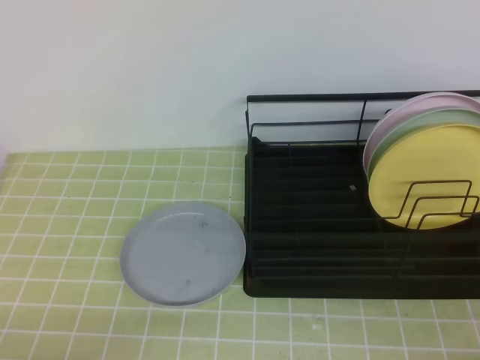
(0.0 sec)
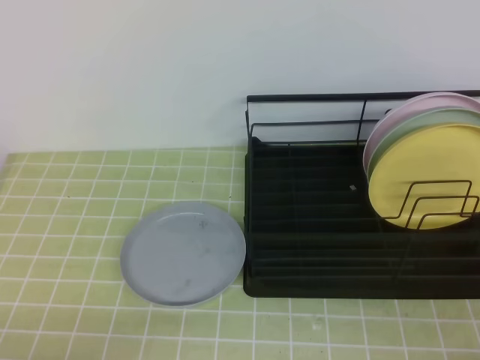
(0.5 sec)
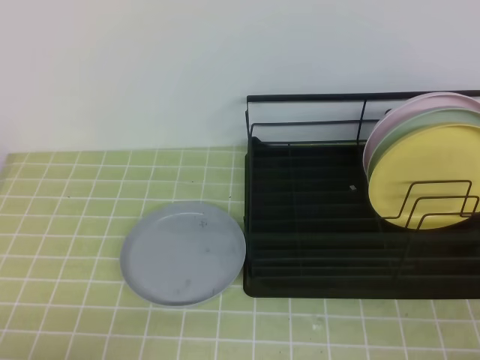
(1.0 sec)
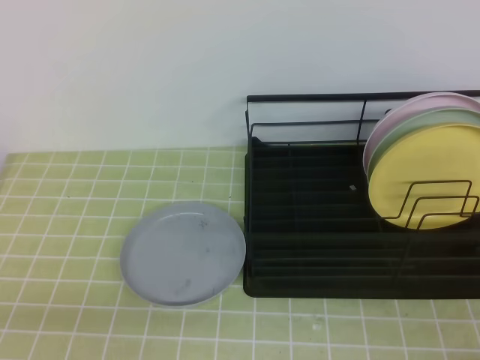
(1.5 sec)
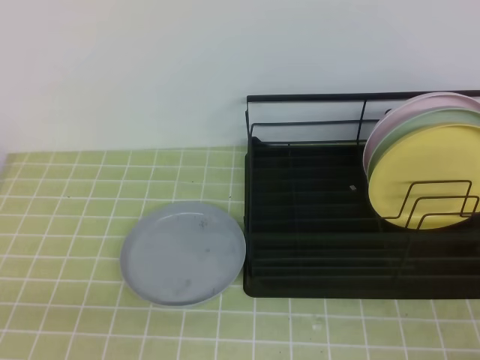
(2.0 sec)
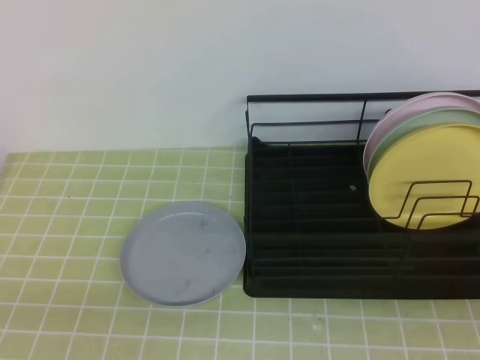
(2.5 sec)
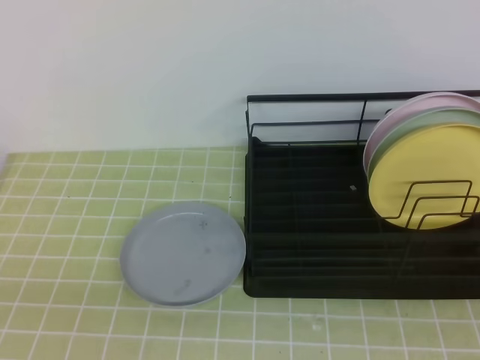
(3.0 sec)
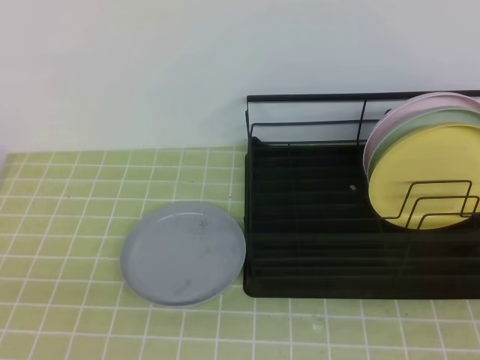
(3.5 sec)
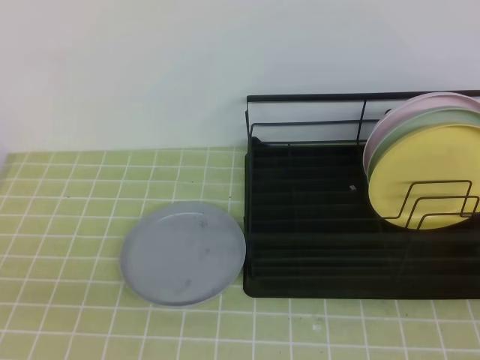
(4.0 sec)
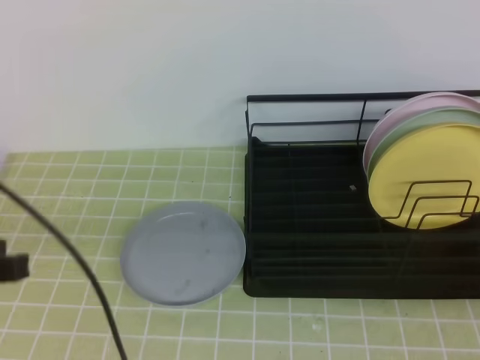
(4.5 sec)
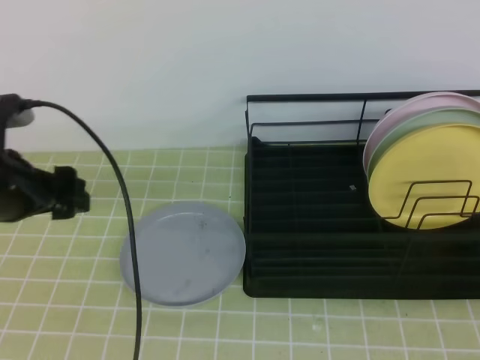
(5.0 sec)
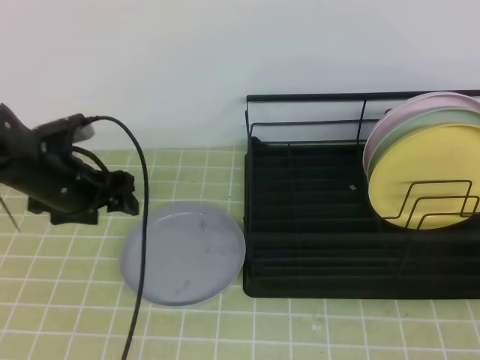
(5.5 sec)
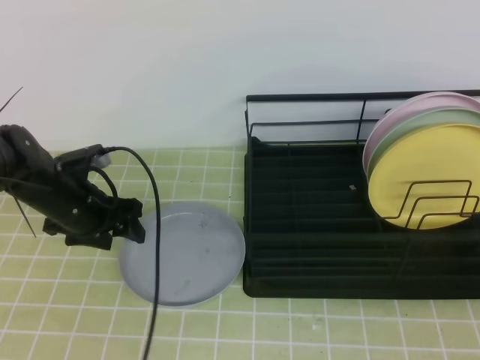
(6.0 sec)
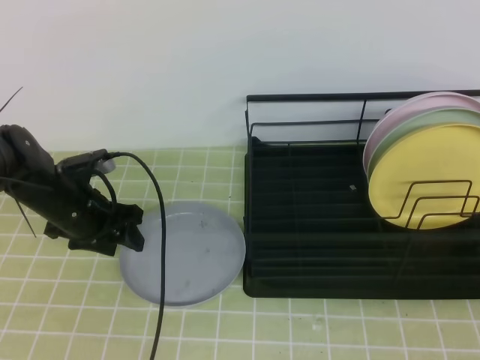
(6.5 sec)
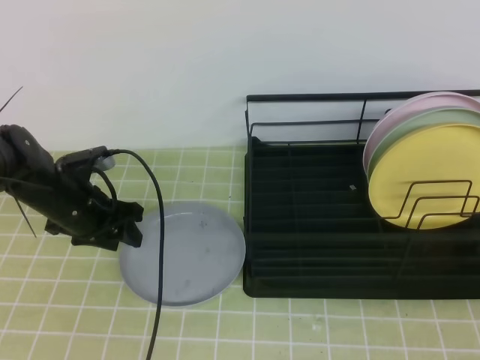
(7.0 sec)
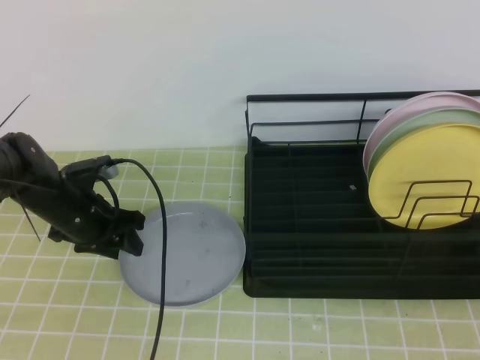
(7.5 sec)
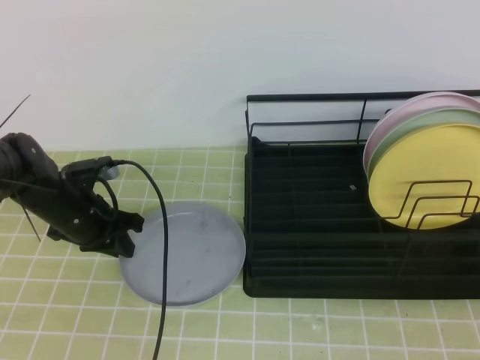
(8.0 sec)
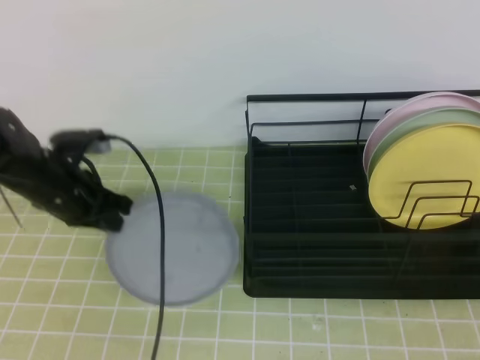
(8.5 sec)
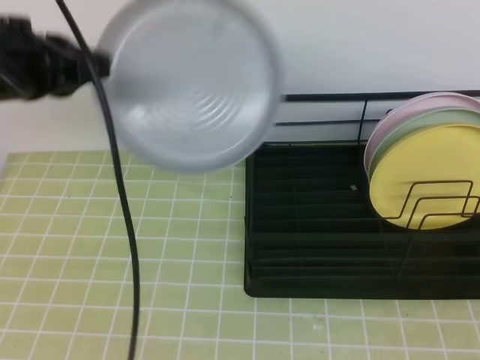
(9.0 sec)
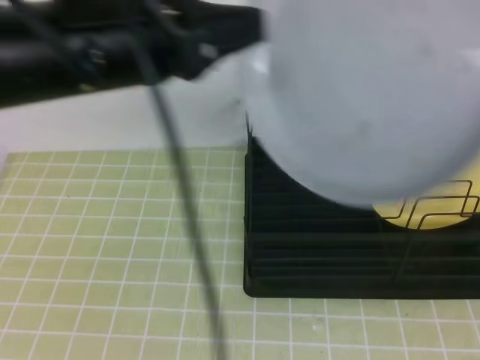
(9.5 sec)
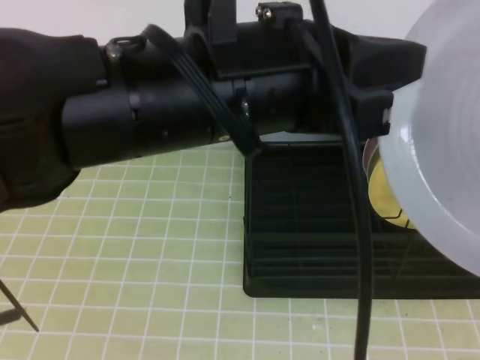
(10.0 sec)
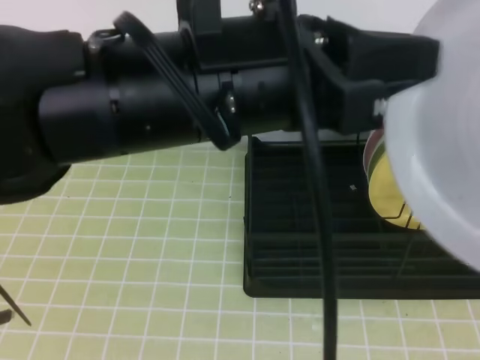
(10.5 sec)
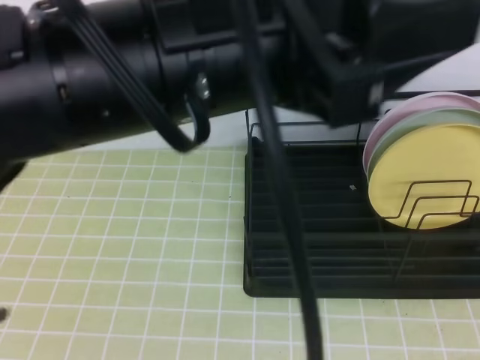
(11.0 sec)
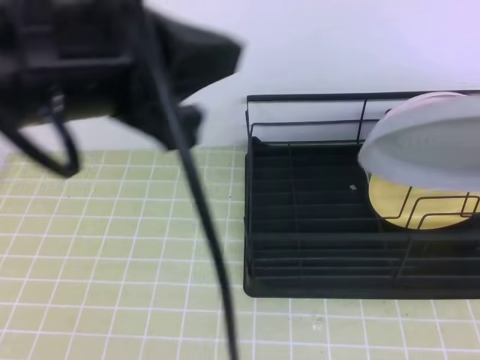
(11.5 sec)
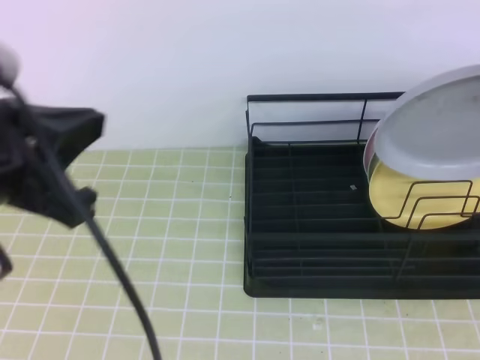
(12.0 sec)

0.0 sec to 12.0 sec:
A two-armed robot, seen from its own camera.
Step, 0.0 sec to 6.5 sec: Left grab the gray plate.
Step, 9.0 sec to 11.0 sec: Right place it at the front of the shelf.
4.0 sec to 6.0 sec: The left gripper is displaced forward by approximately 35 cm, and opens its fingers.
6.0 sec to 8.0 sec: The left gripper closes.
8.0 sec to 10.0 sec: The right gripper heads upward, covering approximately 10 cm, and opens its fingers; the left gripper heads upward, backward and to the right, covering approximately 40 cm.
10.0 sec to 12.0 sec: The right gripper is displaced forward by about 25 cm, and closes its fingers, while the left gripper heads to the left, covering about 15 cm, and opens, then closes once more.

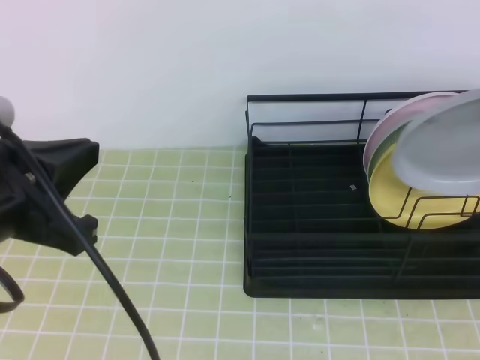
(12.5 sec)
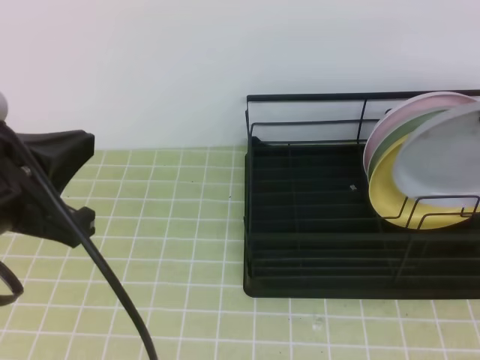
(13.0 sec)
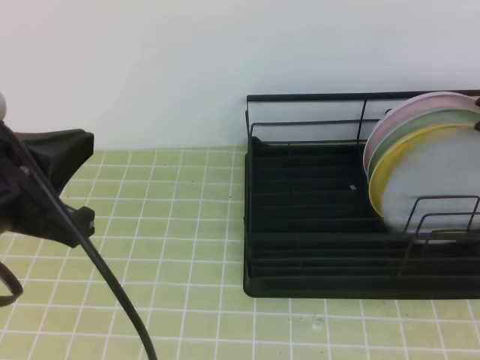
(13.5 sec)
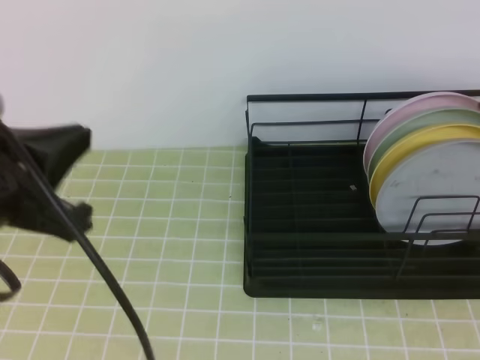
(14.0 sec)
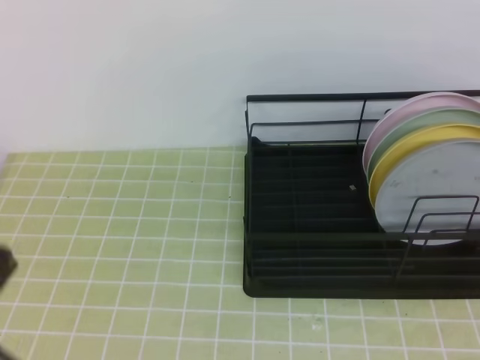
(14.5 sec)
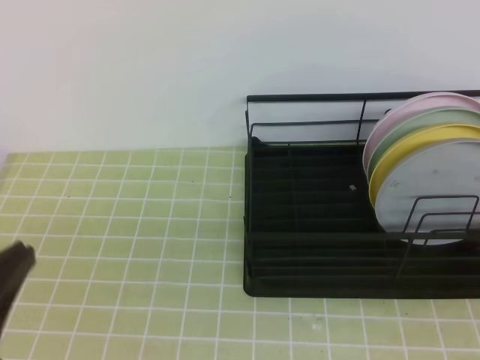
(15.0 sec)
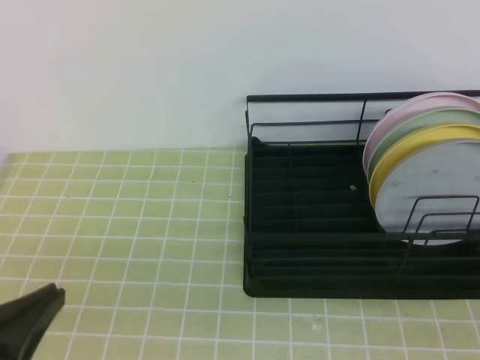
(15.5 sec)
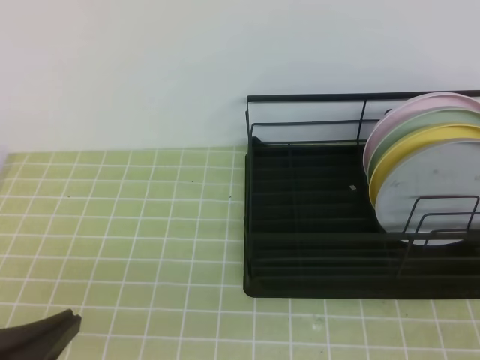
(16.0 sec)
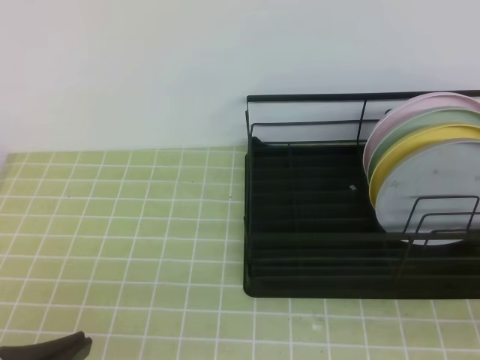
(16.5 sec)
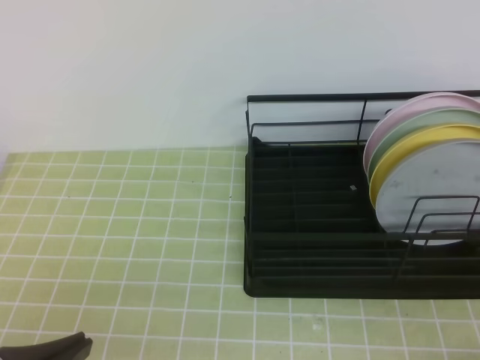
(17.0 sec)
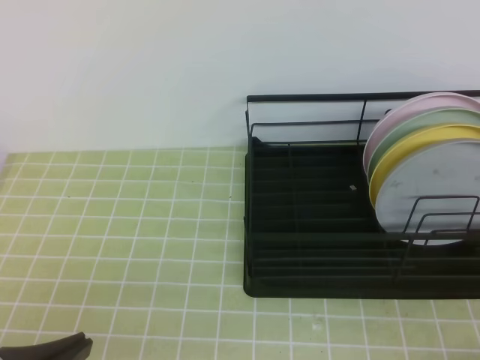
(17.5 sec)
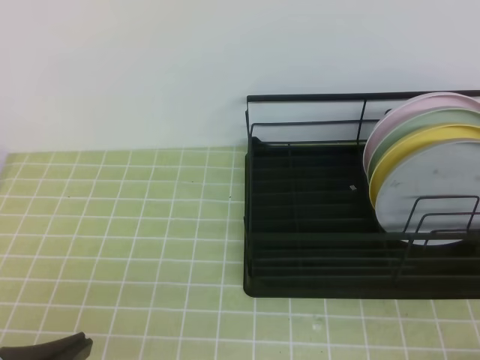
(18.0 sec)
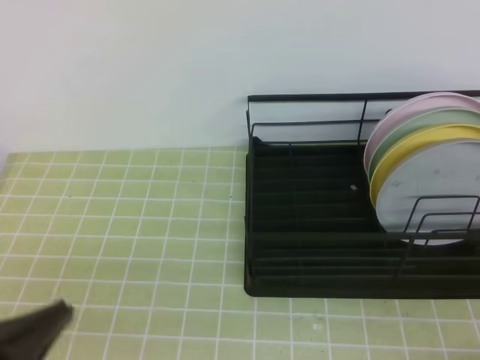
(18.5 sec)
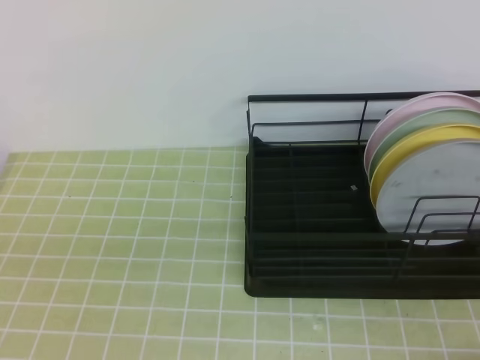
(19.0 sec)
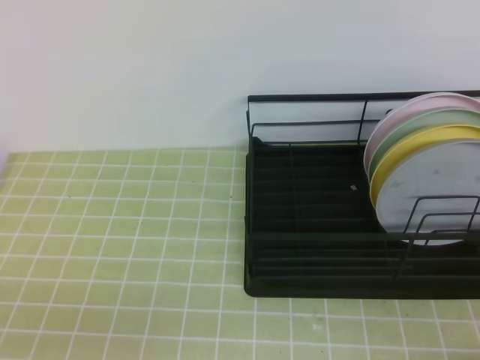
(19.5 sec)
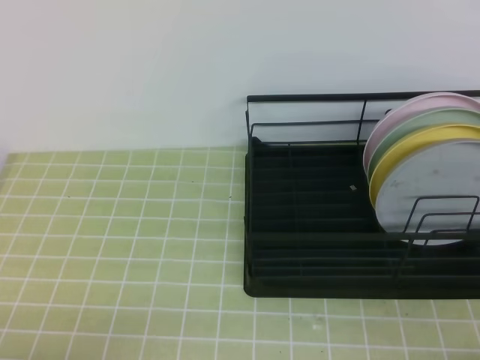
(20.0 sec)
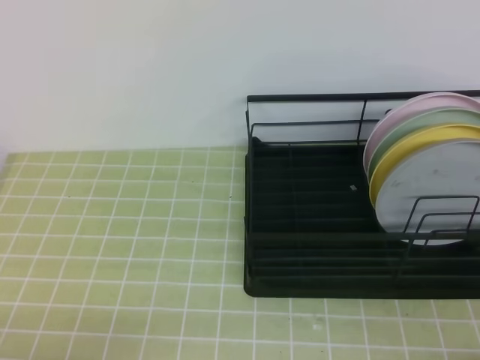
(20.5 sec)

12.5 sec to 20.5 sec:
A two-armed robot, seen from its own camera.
12.5 sec to 14.5 sec: The right gripper shifts about 15 cm backward and upward, and opens, then closes once more. Meanwhile the left gripper shifts about 5 cm backward.
14.5 sec to 16.5 sec: The right gripper is displaced downward and backward by some 25 cm, while the left gripper moves downward, about 10 cm.
18.5 sec to 20.5 sec: The left gripper heads downward, covering approximately 10 cm.
